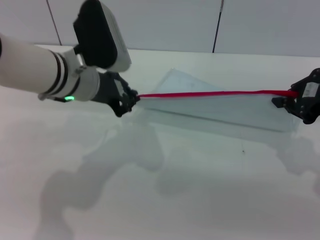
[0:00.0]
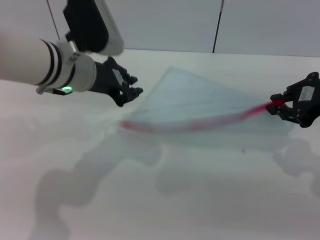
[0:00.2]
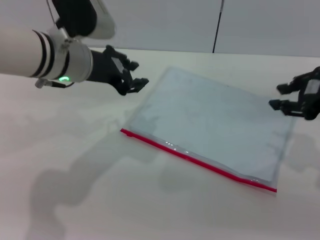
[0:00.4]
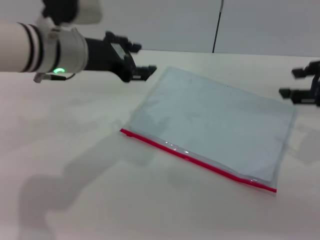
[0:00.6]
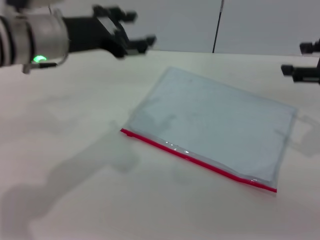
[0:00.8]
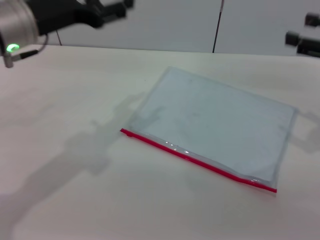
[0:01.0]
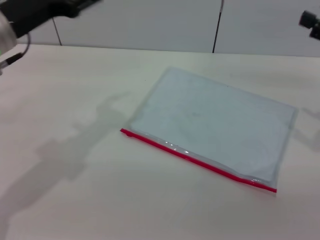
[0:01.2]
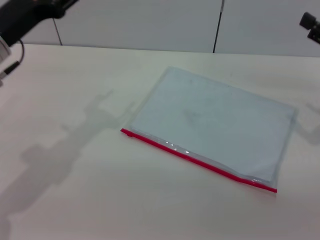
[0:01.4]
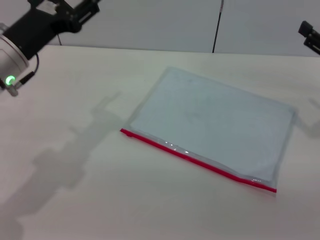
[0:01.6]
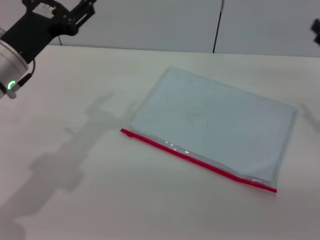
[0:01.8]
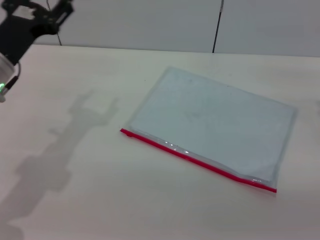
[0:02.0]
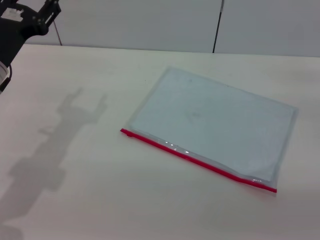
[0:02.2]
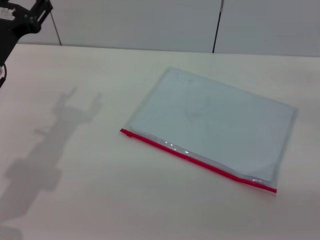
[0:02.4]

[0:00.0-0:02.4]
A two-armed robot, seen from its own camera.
Step, 0:00.2 to 0:00.6: Place the transparent plastic bag.
0:00.0 to 0:01.2: The left gripper moves to the left, some 10 cm, and opens its fingers. Meanwhile the right gripper shifts about 5 cm to the right, and opens up.
0:01.2 to 0:02.4: The left gripper travels downward by about 5 cm.

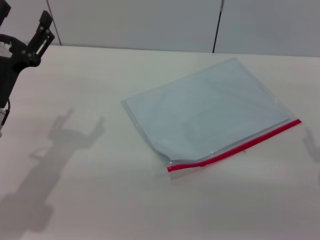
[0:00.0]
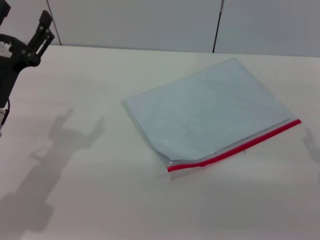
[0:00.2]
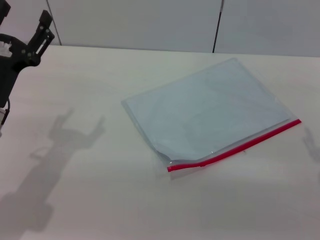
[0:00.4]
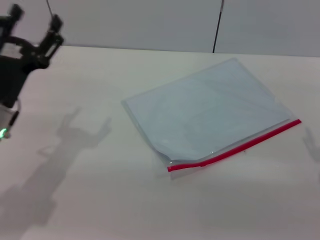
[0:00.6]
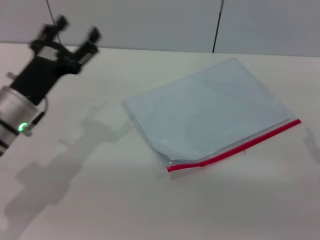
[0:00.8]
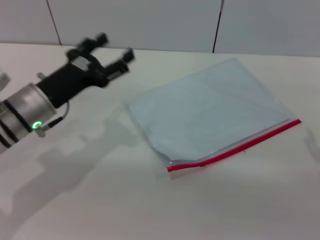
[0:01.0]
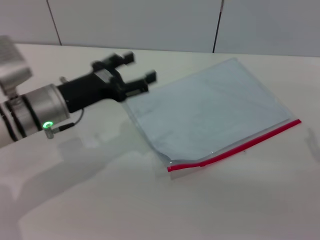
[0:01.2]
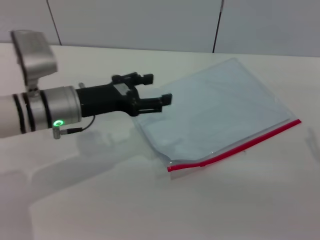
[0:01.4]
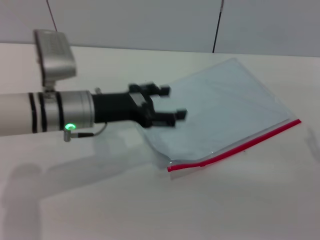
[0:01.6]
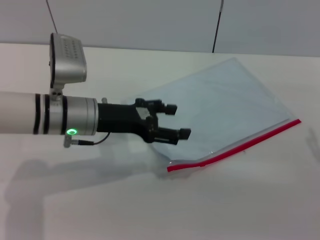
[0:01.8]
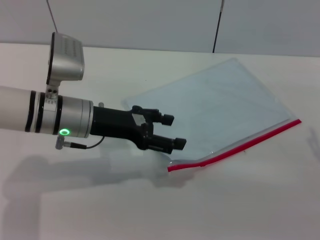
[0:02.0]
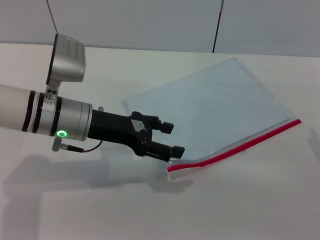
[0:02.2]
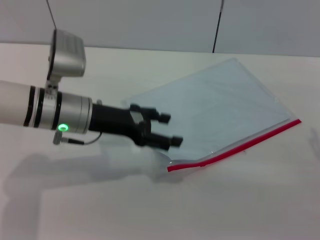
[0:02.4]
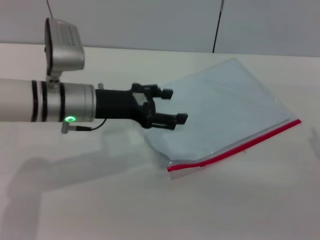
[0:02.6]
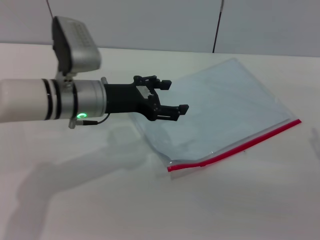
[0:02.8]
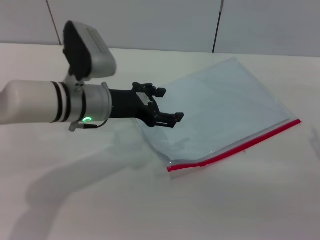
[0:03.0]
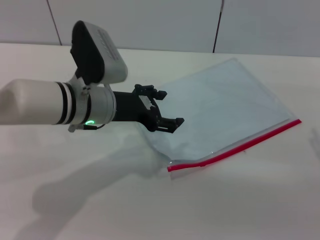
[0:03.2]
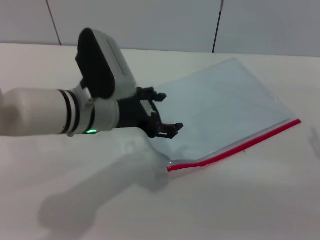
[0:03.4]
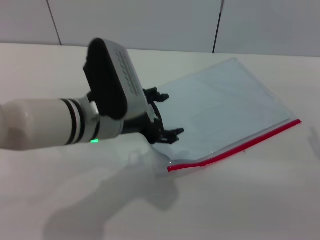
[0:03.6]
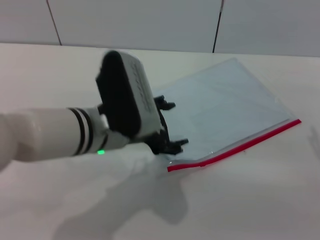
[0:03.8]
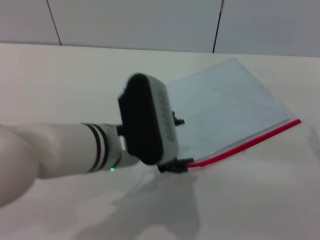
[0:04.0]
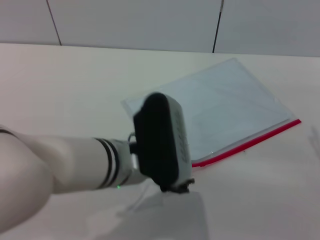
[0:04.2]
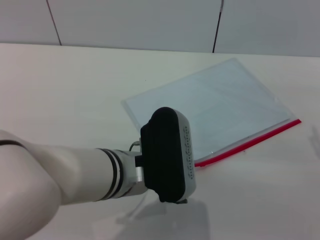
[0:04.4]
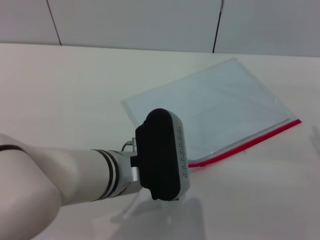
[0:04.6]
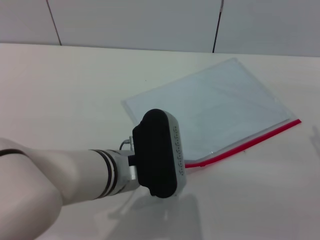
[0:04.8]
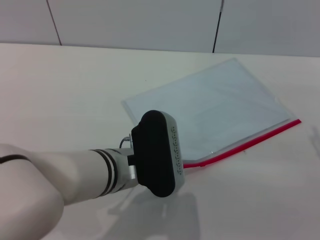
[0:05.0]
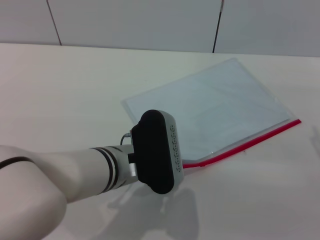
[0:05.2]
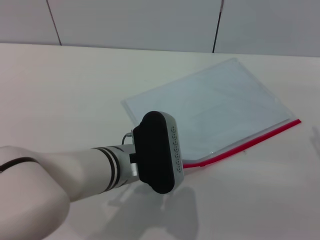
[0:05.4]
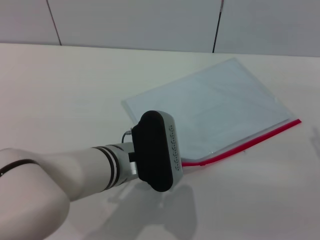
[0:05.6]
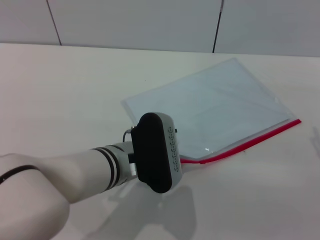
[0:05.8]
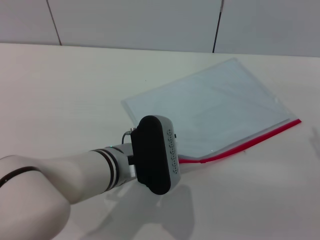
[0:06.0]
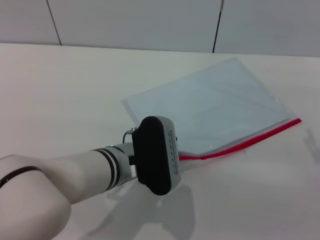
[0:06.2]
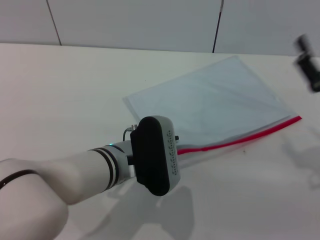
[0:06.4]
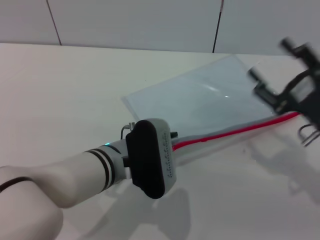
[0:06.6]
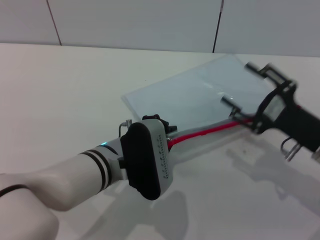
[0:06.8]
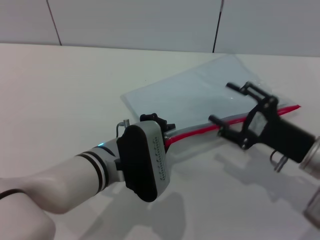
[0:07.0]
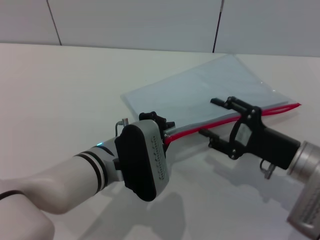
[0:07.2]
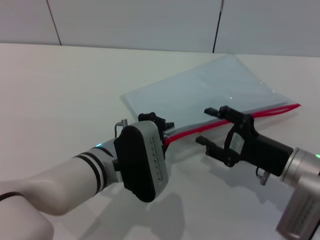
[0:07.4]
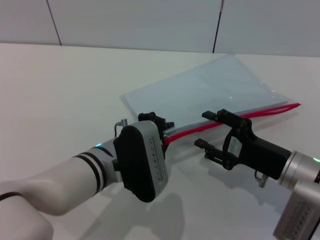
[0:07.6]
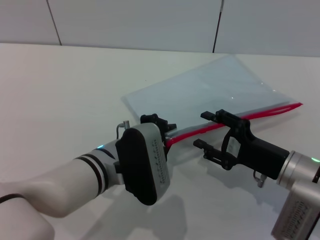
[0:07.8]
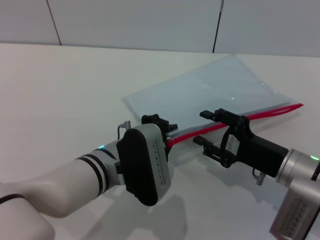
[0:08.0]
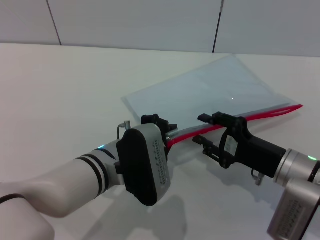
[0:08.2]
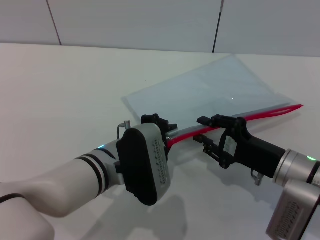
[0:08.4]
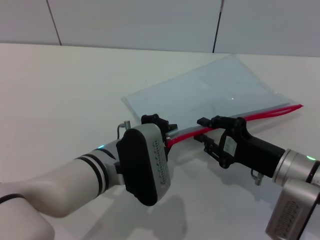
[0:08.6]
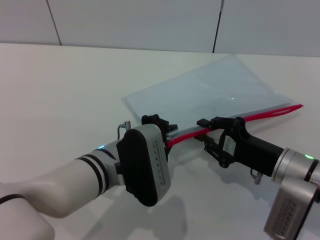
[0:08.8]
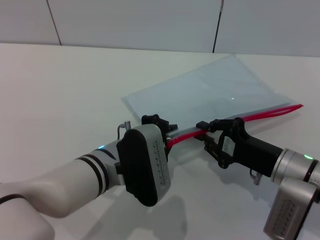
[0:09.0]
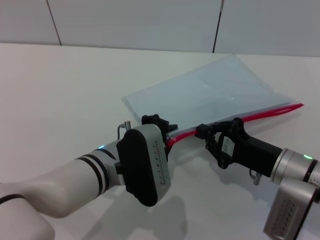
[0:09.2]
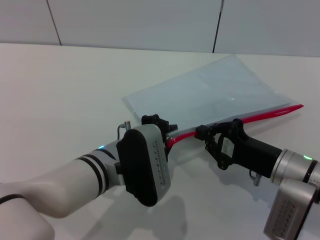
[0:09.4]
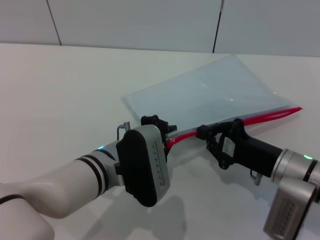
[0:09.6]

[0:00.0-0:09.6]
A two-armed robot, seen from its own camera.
Step, 0:00.0 to 0:06.6: Pick up the transparent plastic bag with the left gripper.
0:00.0 to 0:01.6: The left gripper goes some 10 cm to the right and forward.
0:03.2 to 0:04.8: The left gripper shifts about 10 cm backward and to the right.
0:04.8 to 0:06.4: The left gripper closes up.
0:06.4 to 0:08.0: The right gripper heads to the left and downward, covering some 10 cm.
0:08.0 to 0:09.6: The right gripper closes.

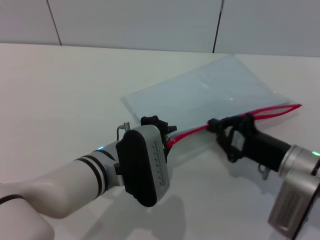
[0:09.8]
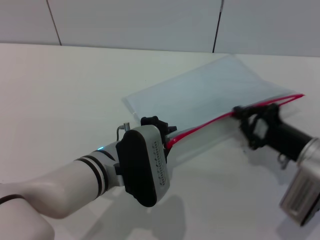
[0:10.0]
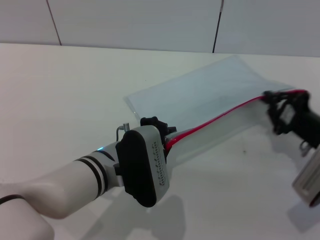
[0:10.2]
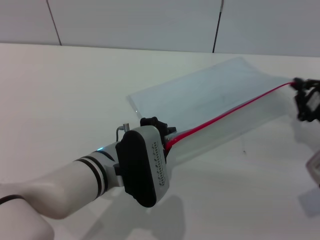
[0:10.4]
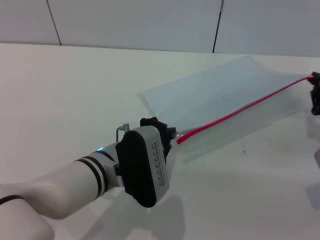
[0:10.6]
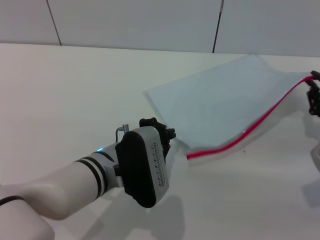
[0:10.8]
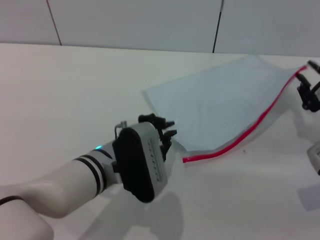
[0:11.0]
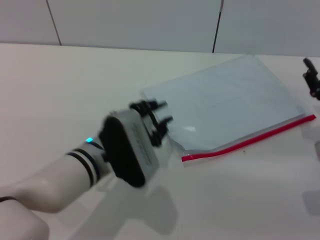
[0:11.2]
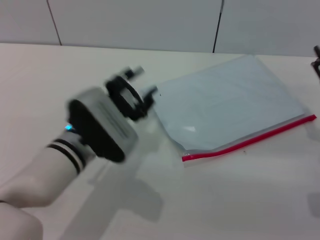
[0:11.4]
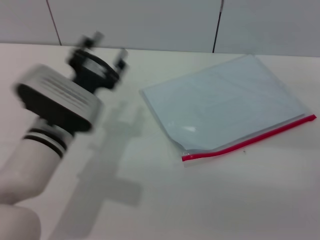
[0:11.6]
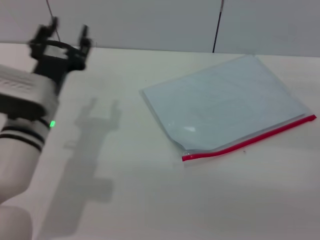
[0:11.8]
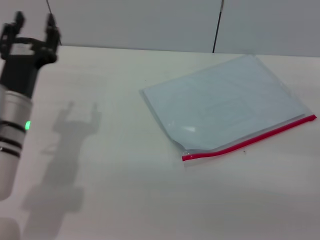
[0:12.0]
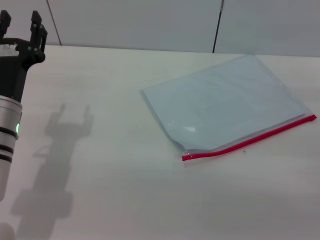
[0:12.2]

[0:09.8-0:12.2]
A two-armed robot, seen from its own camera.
Step, 0:10.8 to 0:11.4: Place the transparent plastic bag.
0:09.8 to 0:11.0: The right gripper travels to the right by roughly 10 cm.
0:11.0 to 0:12.2: The right gripper moves approximately 5 cm, and opens, while the left gripper heads to the left, covering about 15 cm, and opens up.
